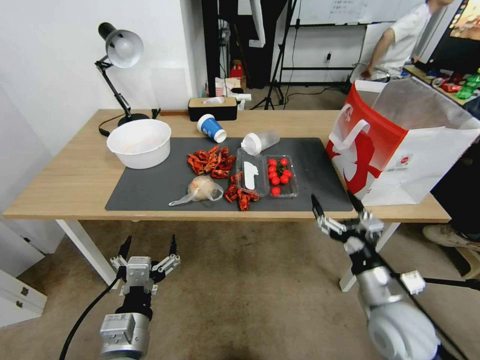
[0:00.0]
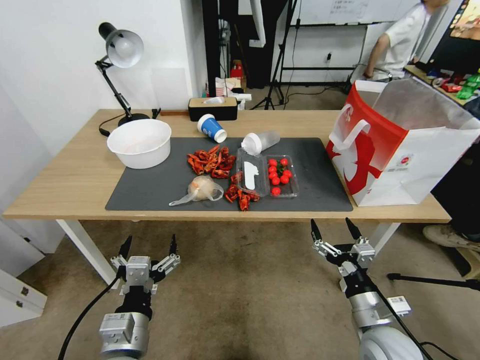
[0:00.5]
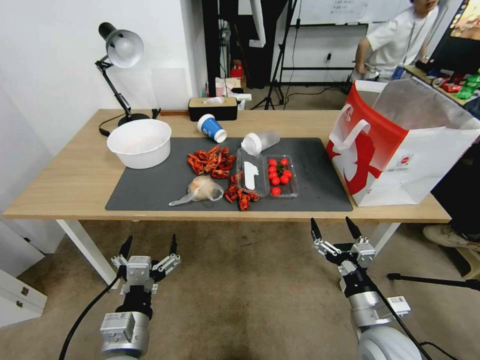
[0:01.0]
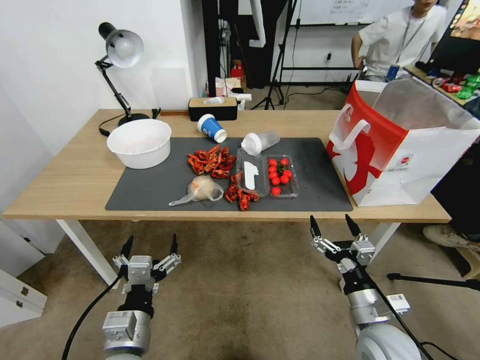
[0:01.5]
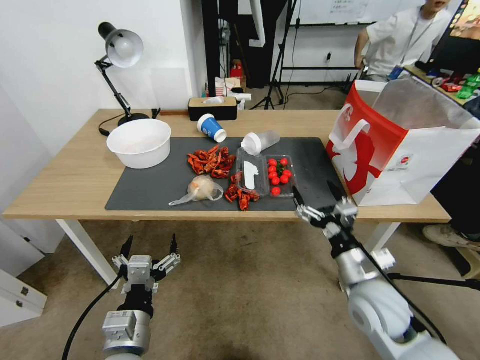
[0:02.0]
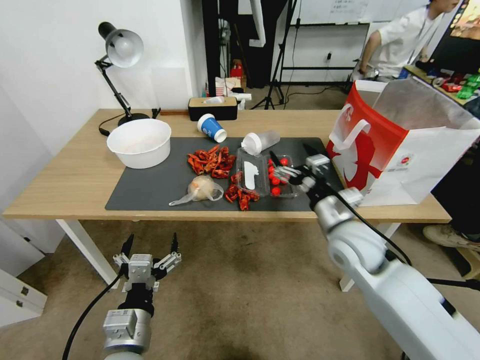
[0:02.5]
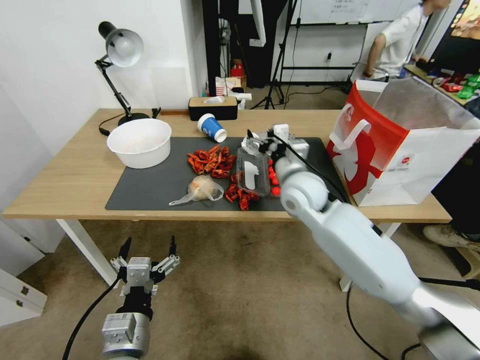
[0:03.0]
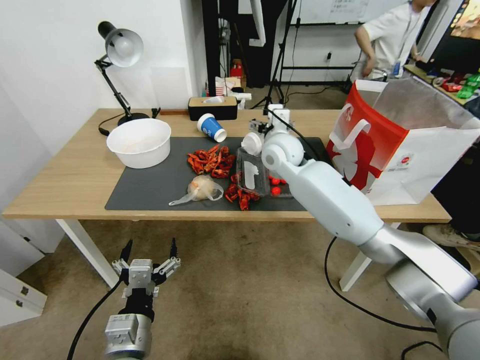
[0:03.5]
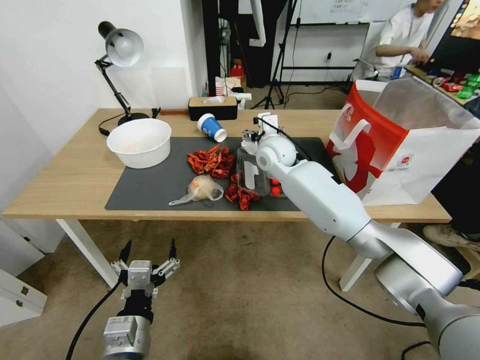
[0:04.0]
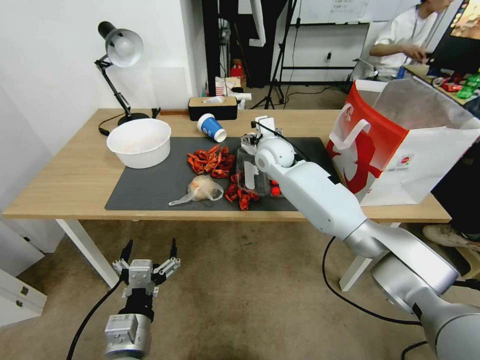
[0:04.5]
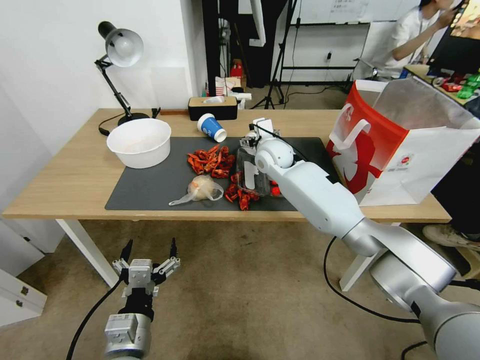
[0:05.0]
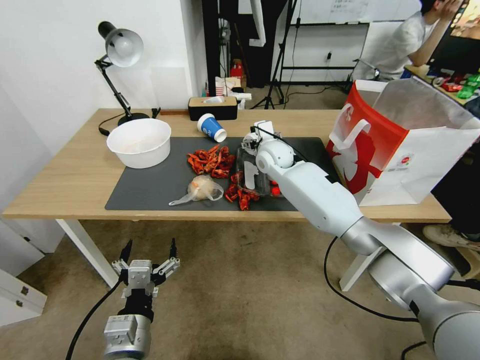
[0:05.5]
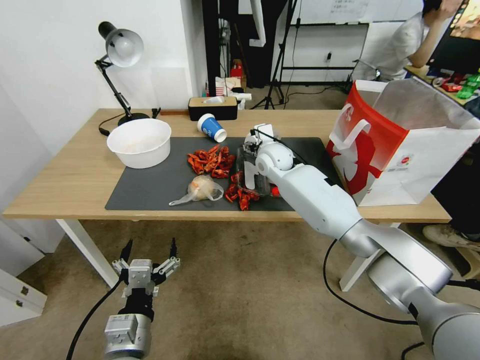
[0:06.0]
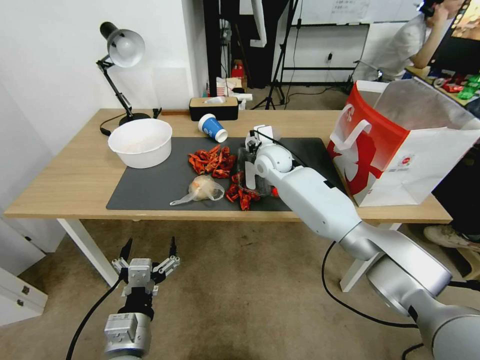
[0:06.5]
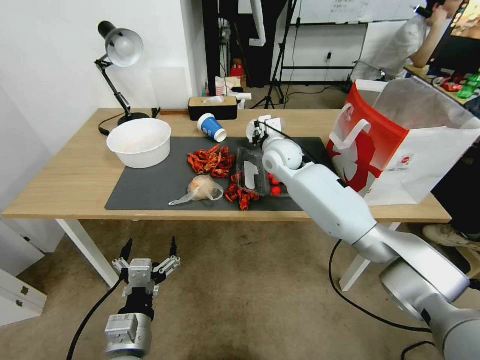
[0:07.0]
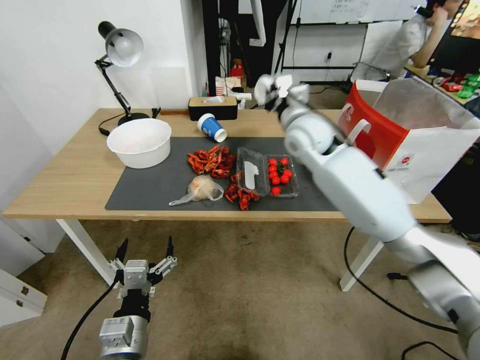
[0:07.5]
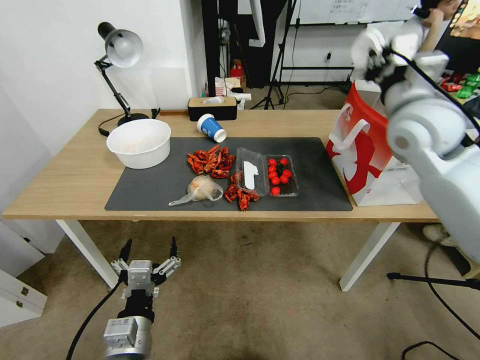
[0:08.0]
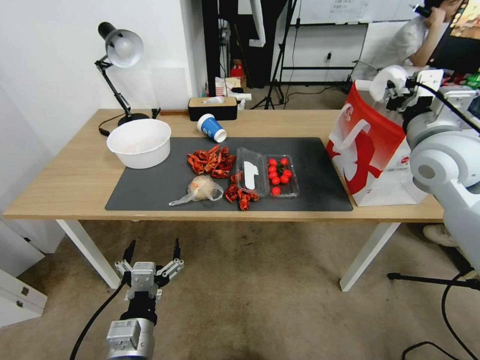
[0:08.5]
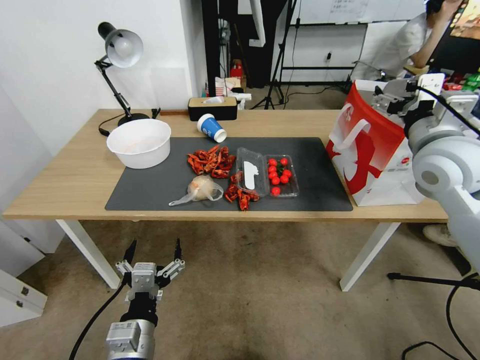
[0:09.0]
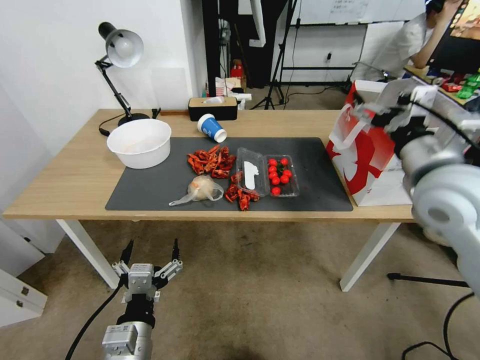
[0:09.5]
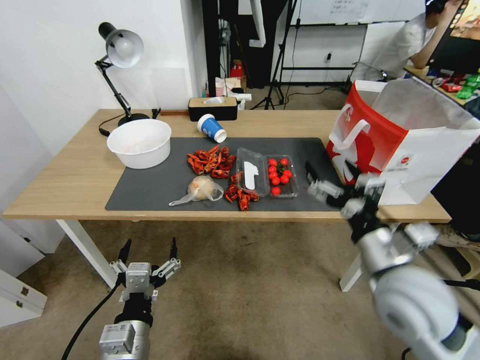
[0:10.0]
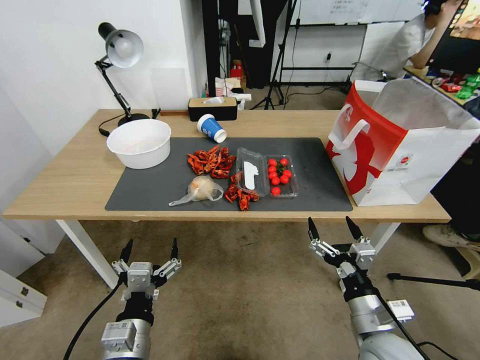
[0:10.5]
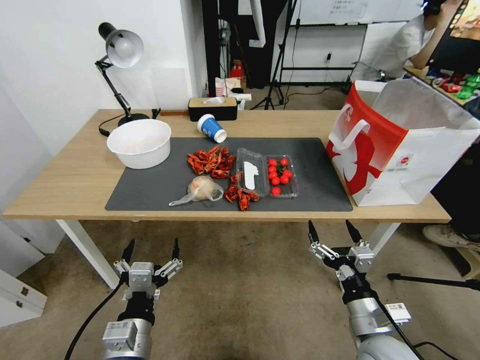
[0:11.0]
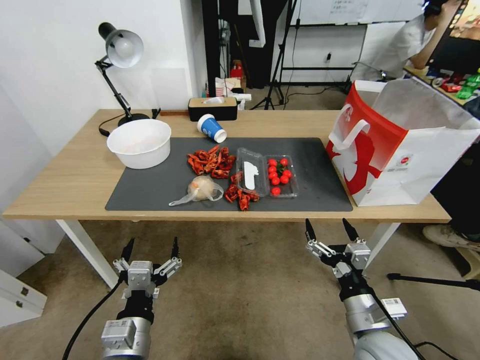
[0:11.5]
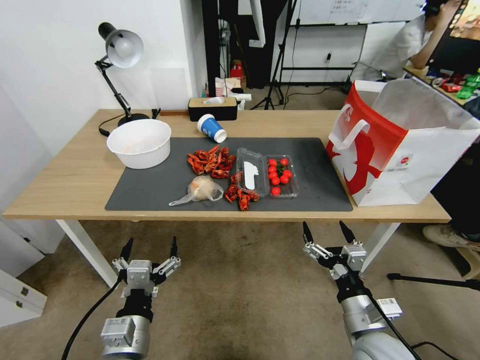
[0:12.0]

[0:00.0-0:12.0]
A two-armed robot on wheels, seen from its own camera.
0:02.0 to 0:04.0: The right gripper is displaced forward and to the left by approximately 35 cm.
0:04.0 to 0:06.0: The grippers make only small movements.
0:06.0 to 0:08.0: The right gripper heads to the right, upward and backward, covering about 30 cm, and closes.
0:08.0 to 0:10.0: The right gripper moves backward and downward, roughly 25 cm, and opens up.
0:10.0 to 0:12.0: The right gripper heads downward and backward, covering roughly 15 cm.

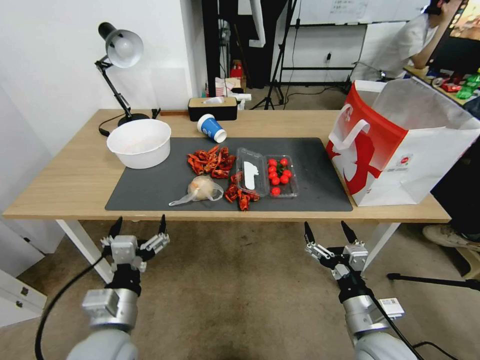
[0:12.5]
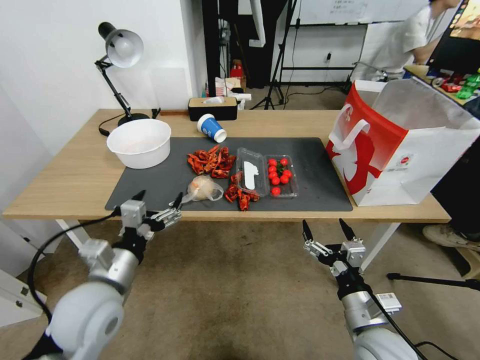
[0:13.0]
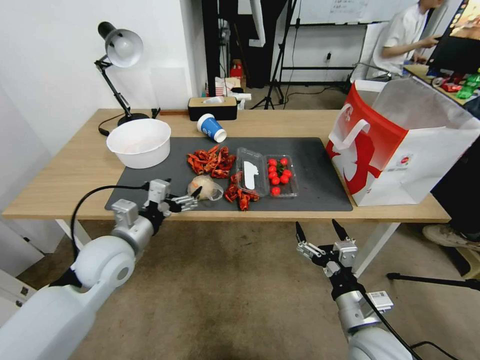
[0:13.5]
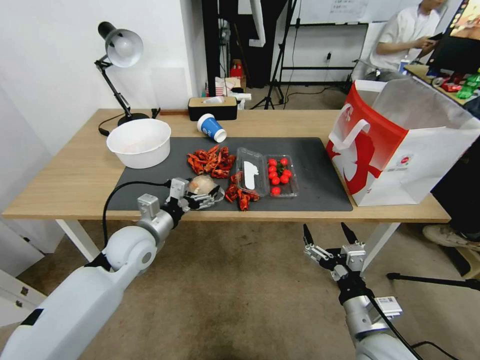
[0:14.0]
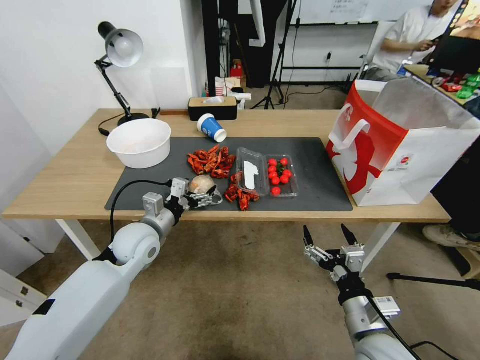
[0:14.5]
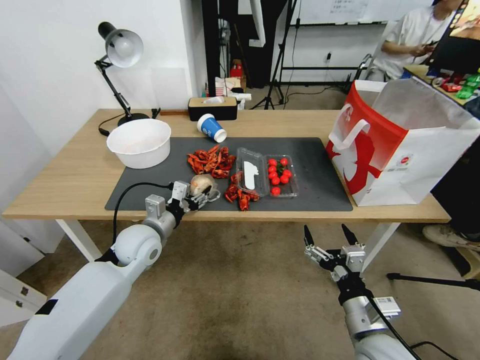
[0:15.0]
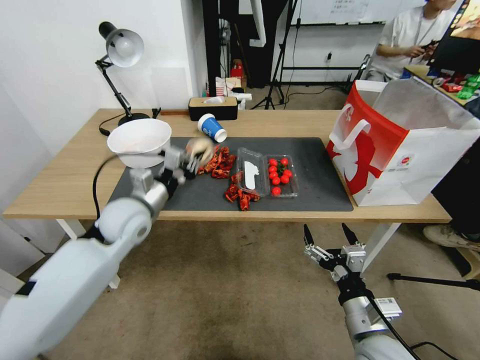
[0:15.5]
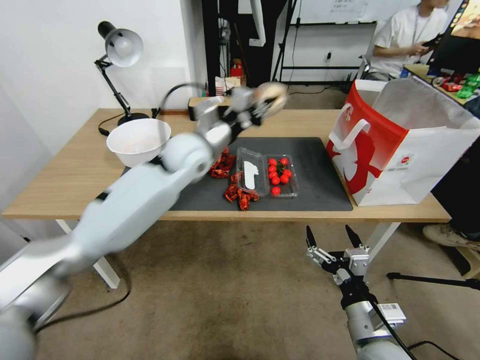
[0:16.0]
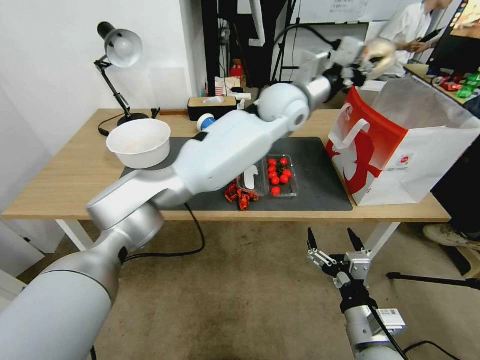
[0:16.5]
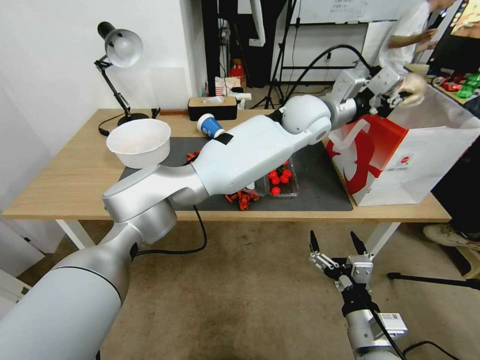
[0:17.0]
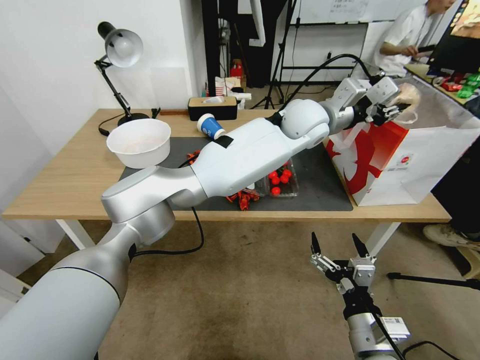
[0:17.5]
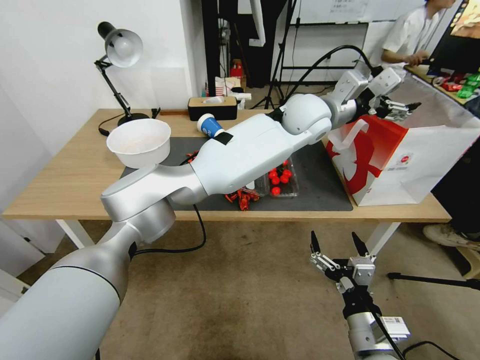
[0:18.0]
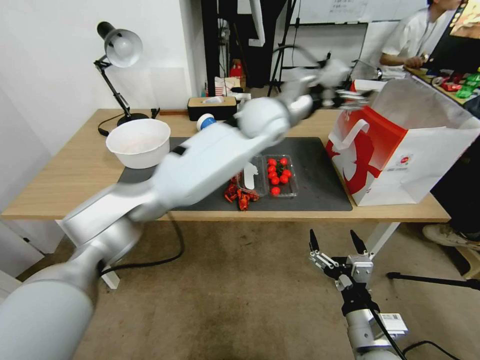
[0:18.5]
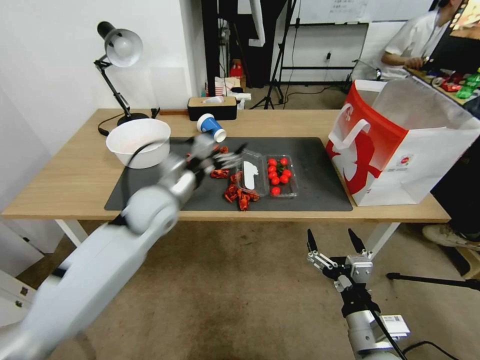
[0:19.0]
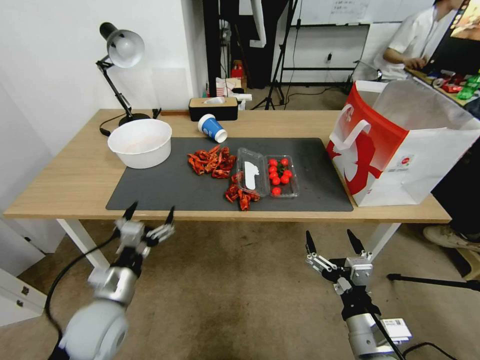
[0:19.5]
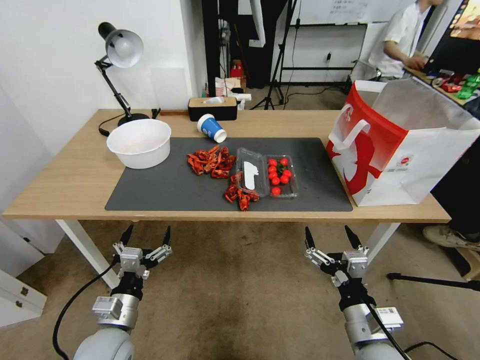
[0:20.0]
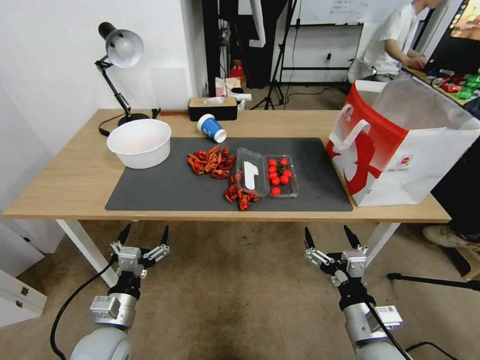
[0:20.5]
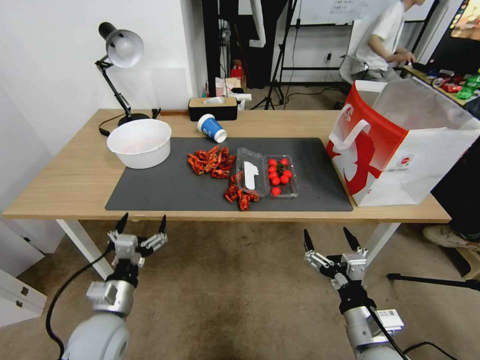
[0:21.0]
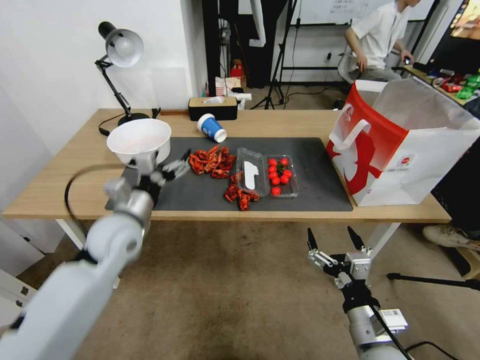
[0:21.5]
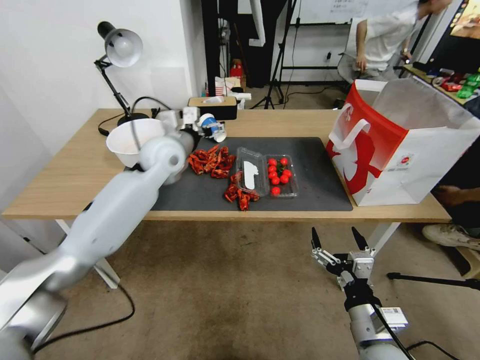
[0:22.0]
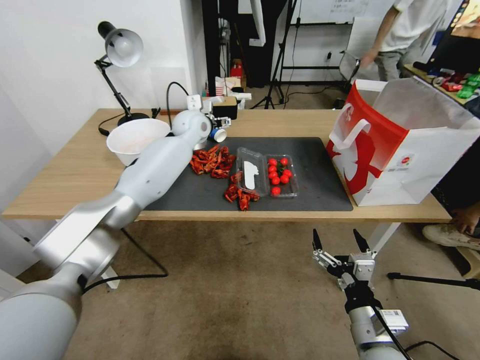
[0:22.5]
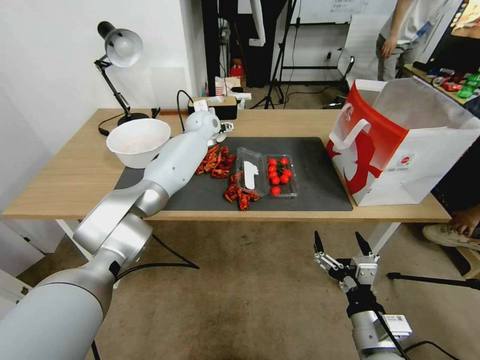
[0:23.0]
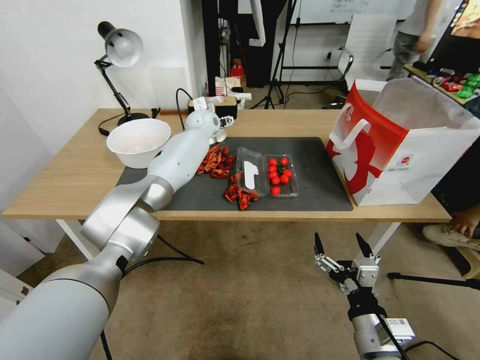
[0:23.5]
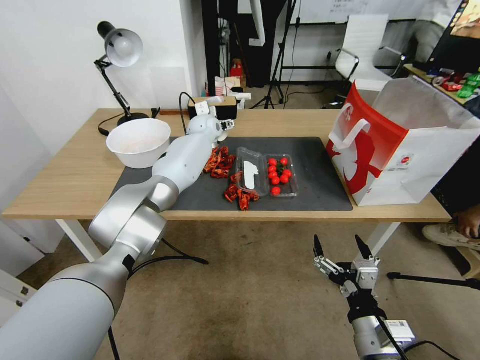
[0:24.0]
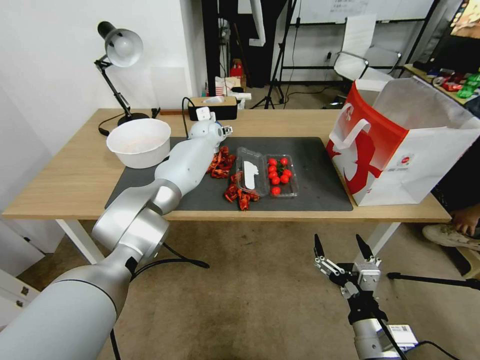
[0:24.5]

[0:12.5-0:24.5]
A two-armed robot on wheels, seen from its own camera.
0:12.5 to 0:14.5: The left gripper shifts some 20 cm forward.
0:14.5 to 0:16.5: The left gripper heads to the right, upward and forward, covering about 40 cm, and closes up.
0:16.5 to 0:18.5: The left gripper is displaced to the left by roughly 5 cm, and opens up.
0:18.5 to 0:20.5: The left gripper shifts roughly 50 cm backward, downward and to the left.
0:20.5 to 0:22.5: The left gripper moves forward and upward, approximately 50 cm.
0:22.5 to 0:24.5: The left gripper heads downward and forward, covering some 10 cm.

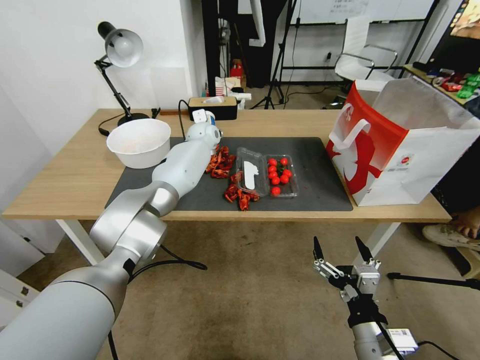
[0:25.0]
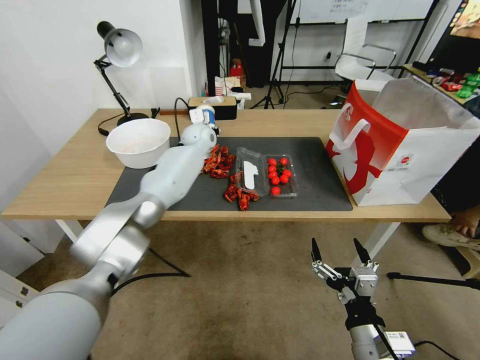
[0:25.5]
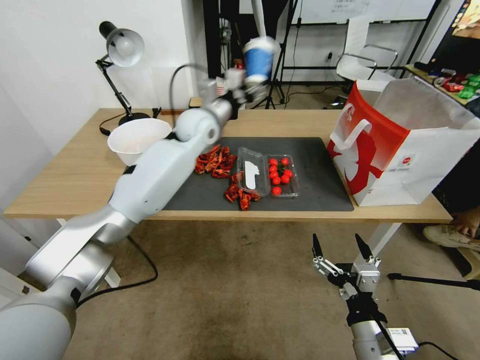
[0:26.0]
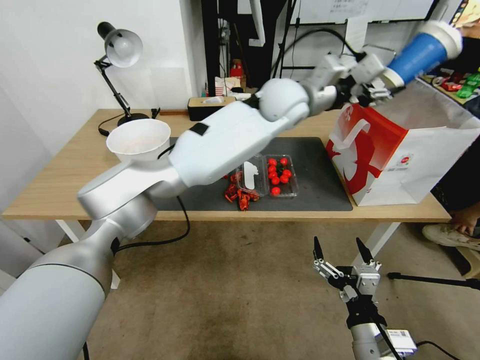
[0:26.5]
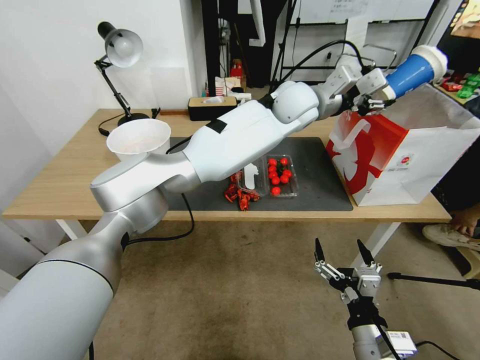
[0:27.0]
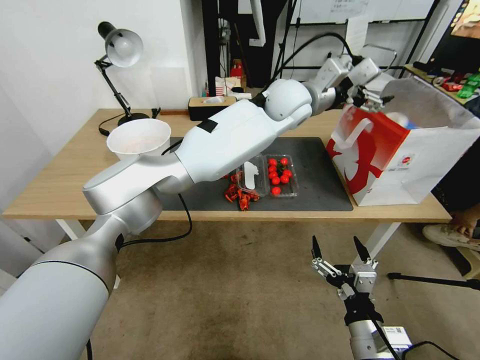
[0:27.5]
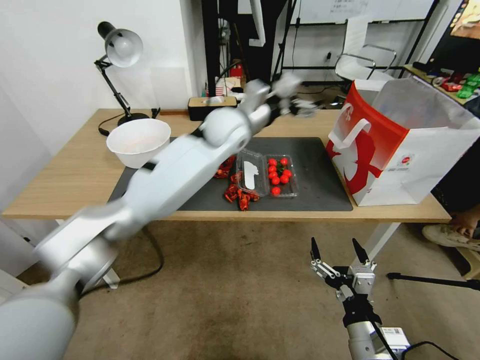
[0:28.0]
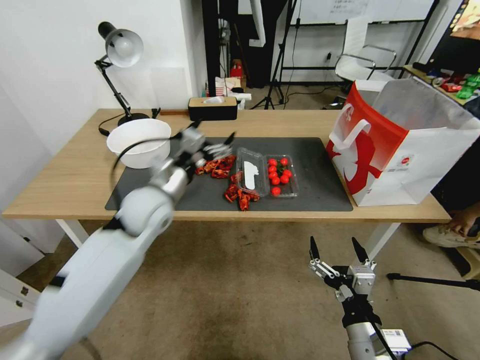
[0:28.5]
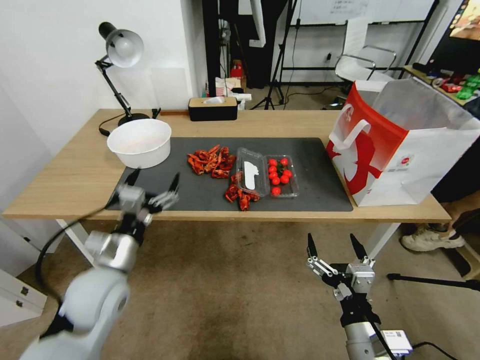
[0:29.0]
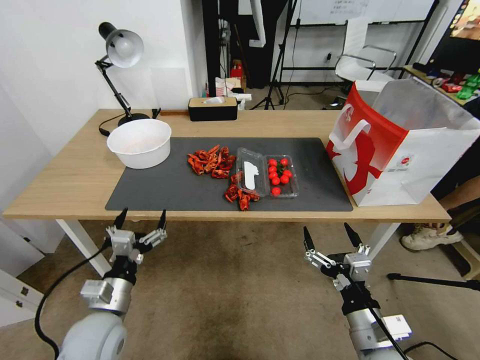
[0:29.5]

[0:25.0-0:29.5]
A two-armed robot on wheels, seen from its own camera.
0:25.0 to 0:27.0: The left gripper travels to the right, upward and backward by about 30 cm.
0:27.0 to 0:29.5: The left gripper shifts approximately 60 cm to the left, backward and downward, and opens up.
